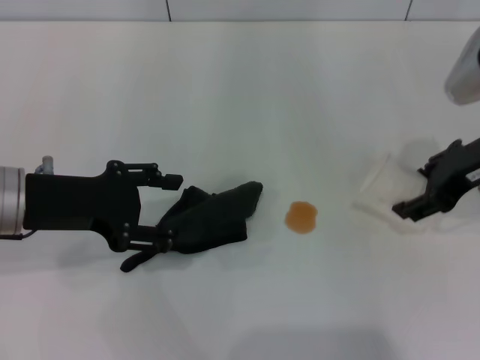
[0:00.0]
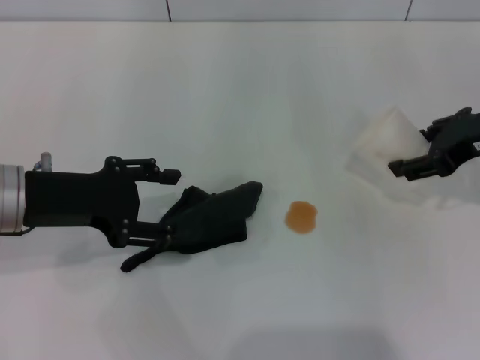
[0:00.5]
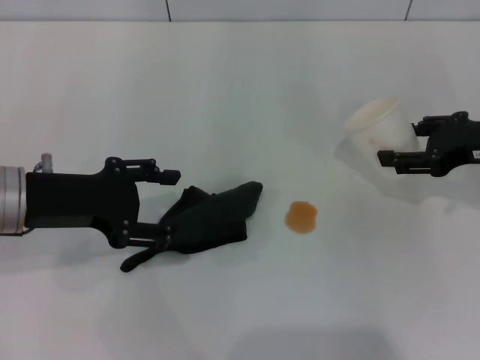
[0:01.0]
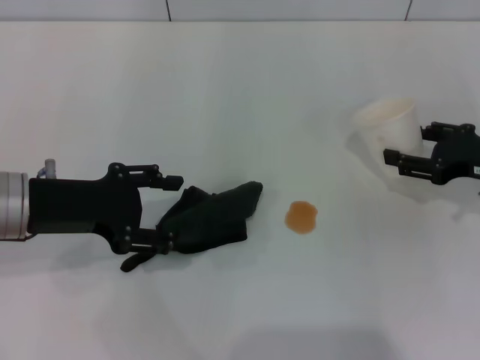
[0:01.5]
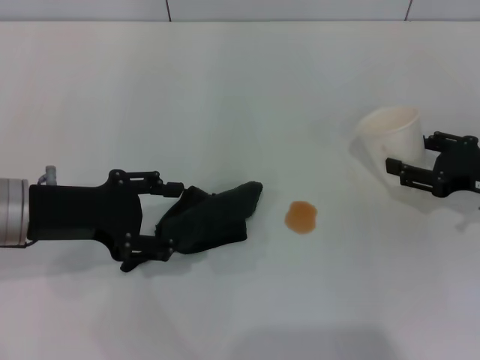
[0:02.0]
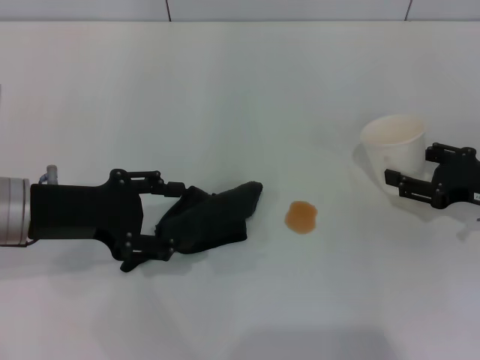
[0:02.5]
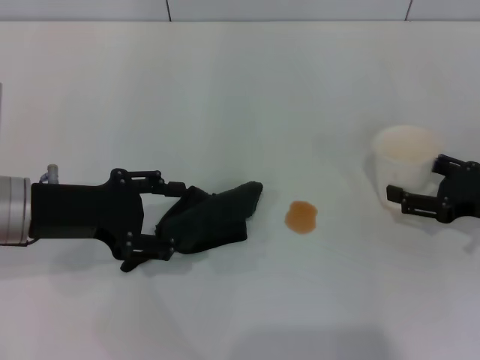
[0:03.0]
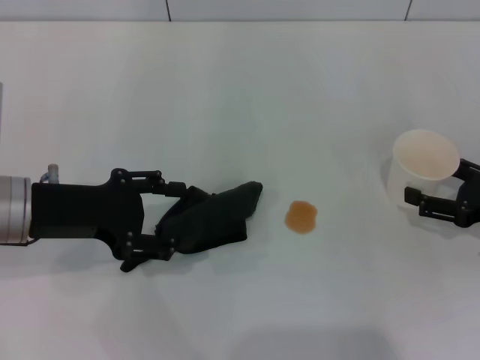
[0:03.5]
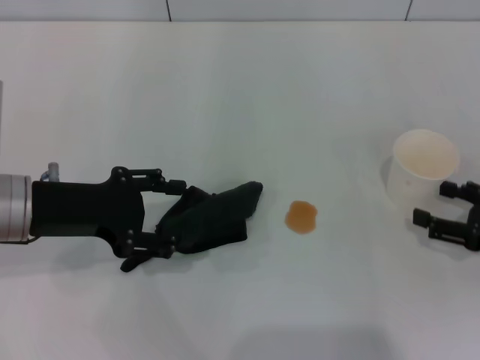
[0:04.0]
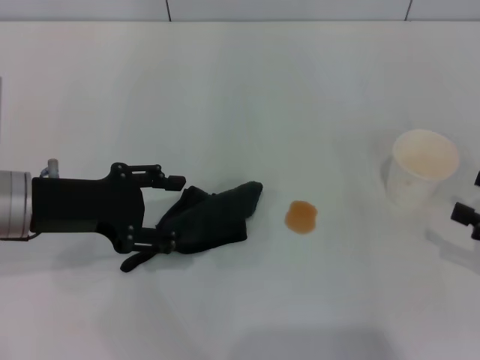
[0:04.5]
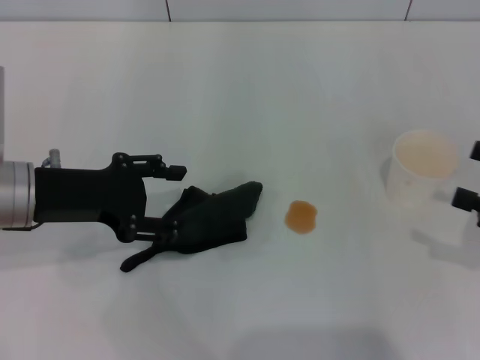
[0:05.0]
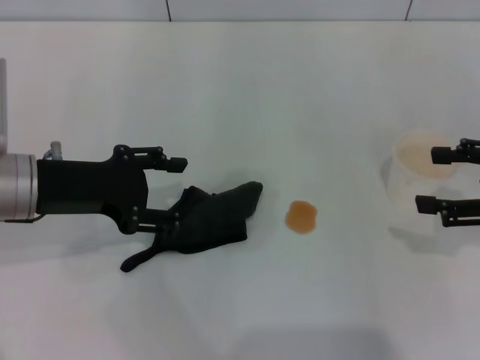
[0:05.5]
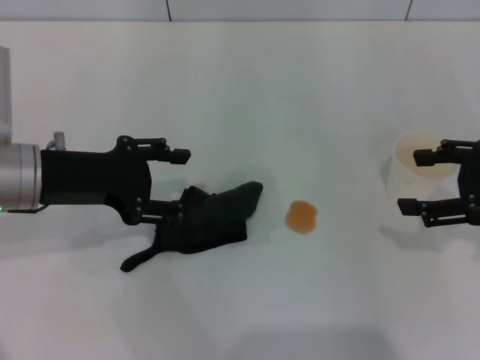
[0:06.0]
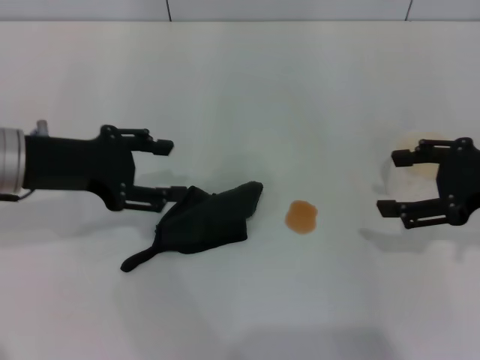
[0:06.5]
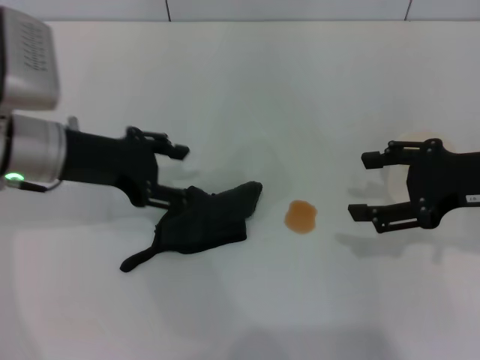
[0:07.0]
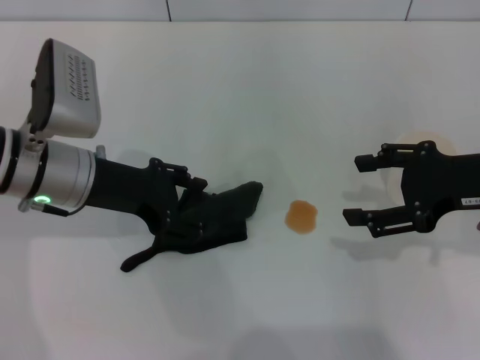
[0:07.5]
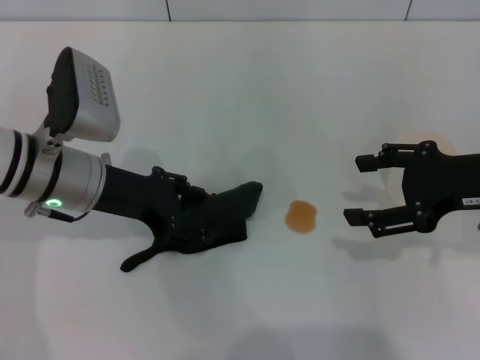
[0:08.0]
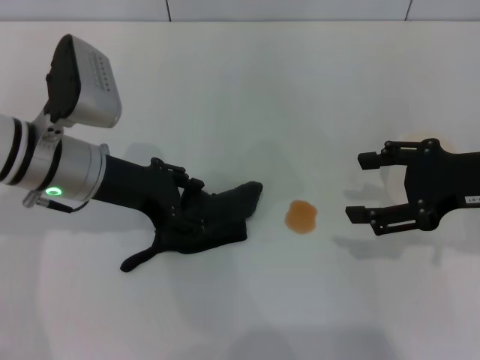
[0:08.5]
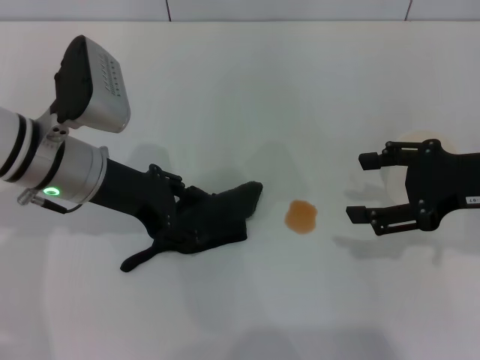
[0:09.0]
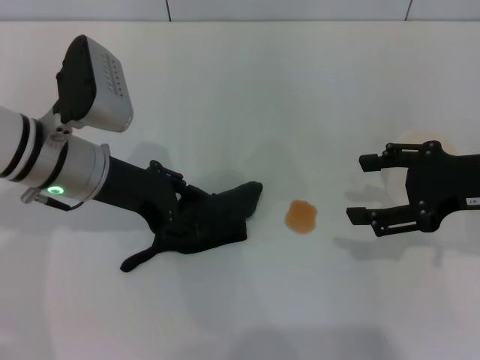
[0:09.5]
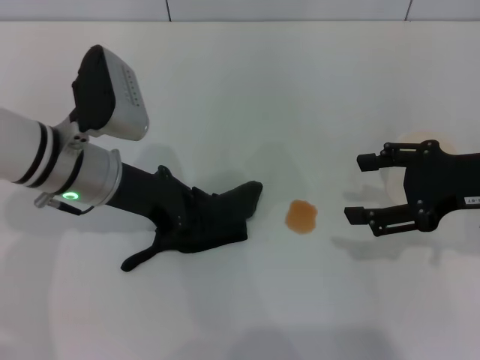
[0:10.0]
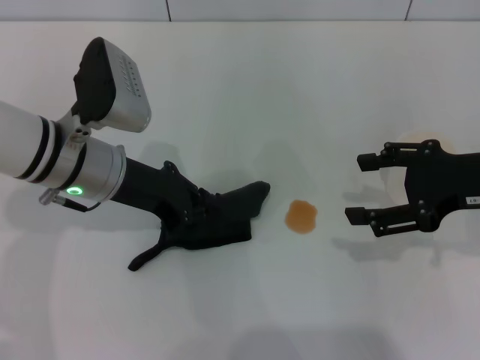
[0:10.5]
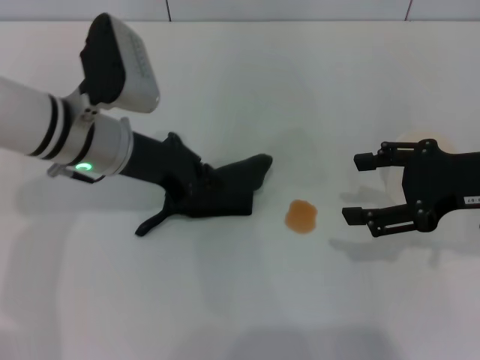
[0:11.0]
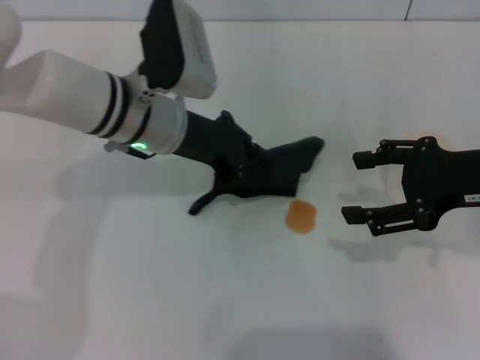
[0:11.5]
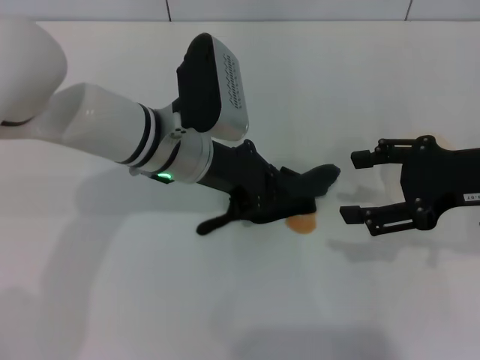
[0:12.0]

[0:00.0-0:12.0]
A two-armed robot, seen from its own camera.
Step, 0:00.0 to 0:04.0: Stand the paper cup upright with the right gripper.
Step, 0:04.5 to 0:10.5: Grasp the rag with the left gripper.
0:00.0 to 0:02.0: The right gripper heads downward and to the right, covering approximately 15 cm.
0:02.0 to 0:04.0: The right gripper shifts roughly 5 cm backward, and opens.
0:04.0 to 0:06.0: The right gripper is displaced upward by roughly 10 cm.
0:06.0 to 0:08.0: The left gripper ends up roughly 5 cm from where it was.
0:08.0 to 0:10.0: The left gripper closes its fingers.
0:10.0 to 0:12.0: The left gripper is displaced to the right by approximately 10 cm, and closes.

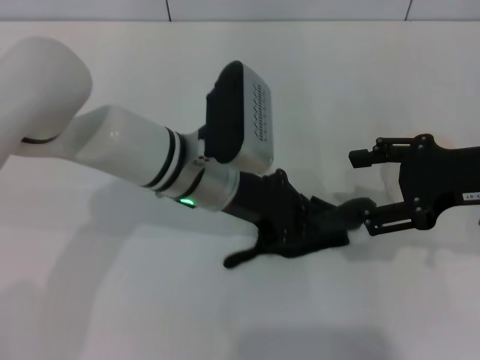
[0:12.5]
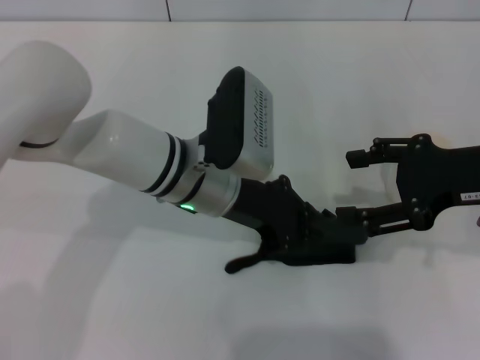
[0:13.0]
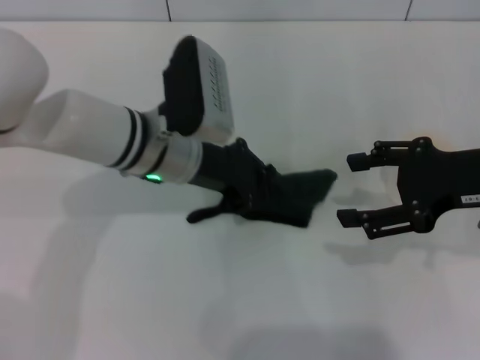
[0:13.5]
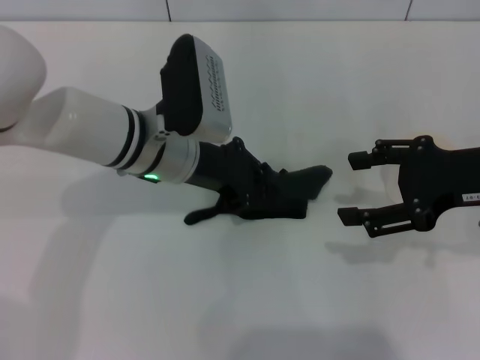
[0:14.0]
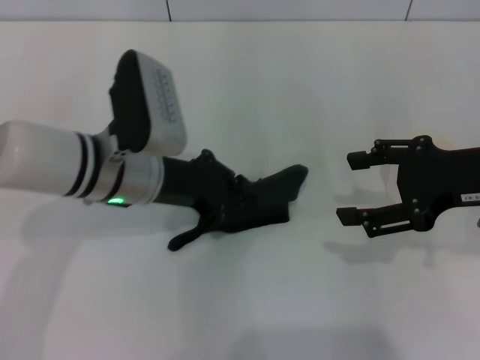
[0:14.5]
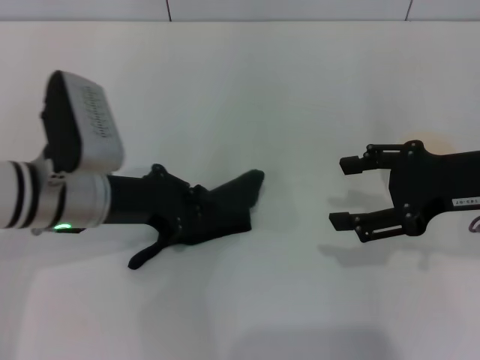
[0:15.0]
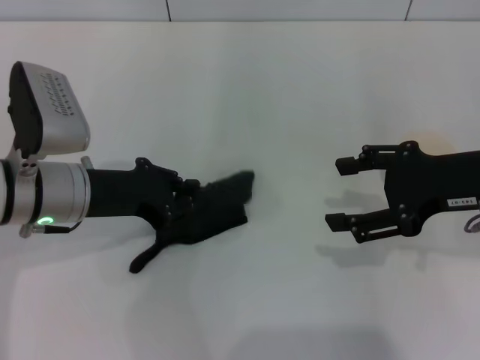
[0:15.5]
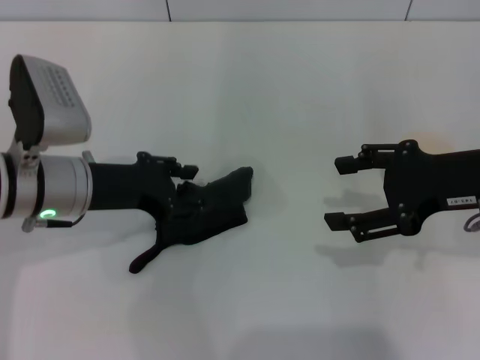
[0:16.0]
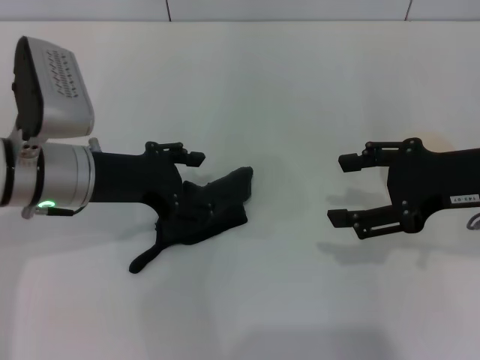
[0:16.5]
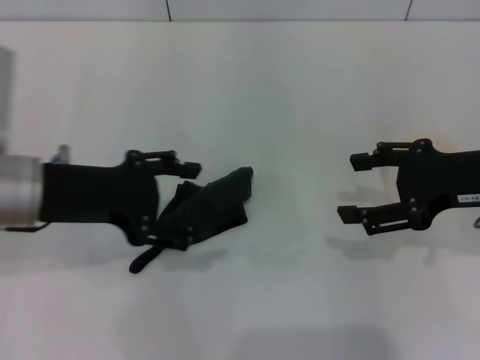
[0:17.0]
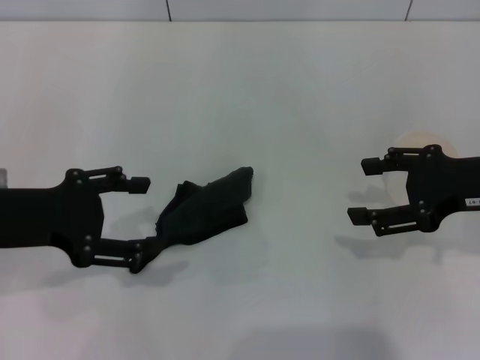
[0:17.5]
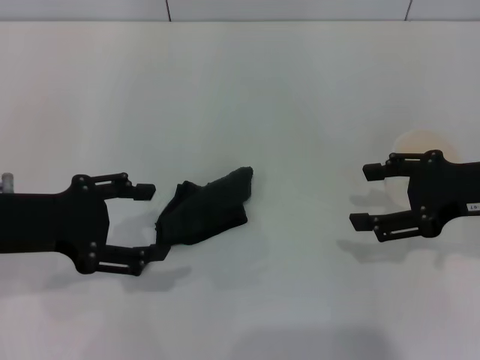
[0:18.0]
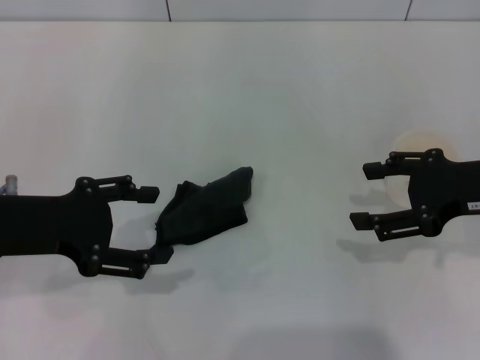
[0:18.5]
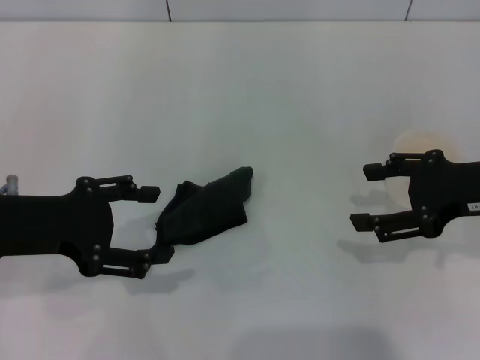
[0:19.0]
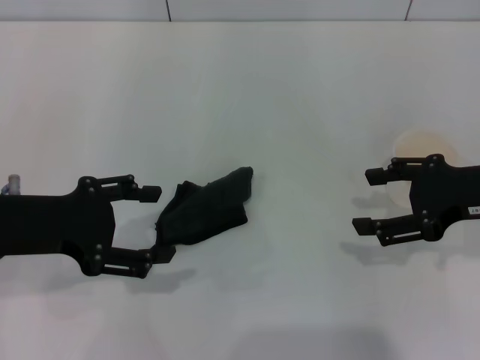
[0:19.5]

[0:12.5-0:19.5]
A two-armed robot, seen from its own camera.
Step, 0:12.5 to 0:14.5: Wipe the stains off the table with the left gripper.
Step, 0:15.0 to 0:17.5: Place the rag on the table with the left gripper.
0:12.5 to 0:14.5: The left gripper shifts approximately 5 cm to the left.
0:14.5 to 0:16.0: The left gripper travels to the left by about 5 cm, and opens up.
0:16.0 to 0:17.5: The left gripper is displaced to the left and backward by some 10 cm, and opens up.
0:17.5 to 0:19.5: Both grippers stay put.

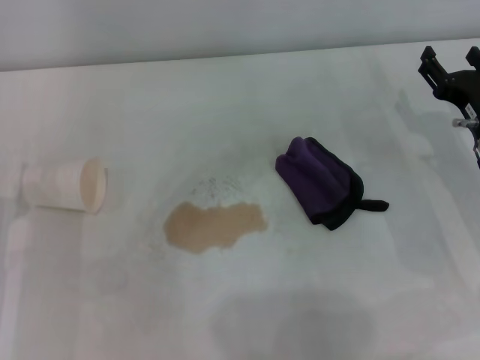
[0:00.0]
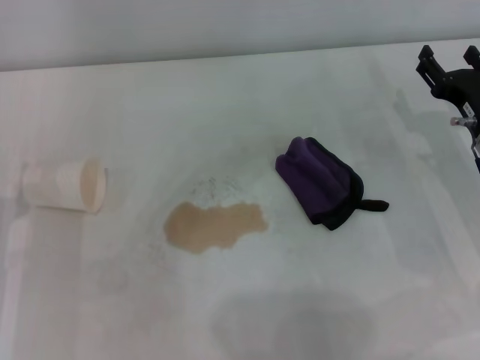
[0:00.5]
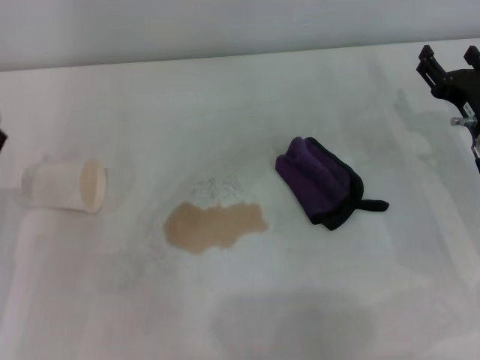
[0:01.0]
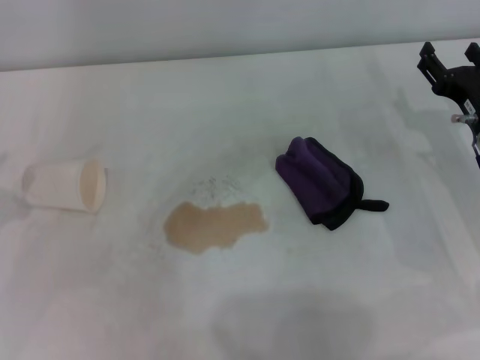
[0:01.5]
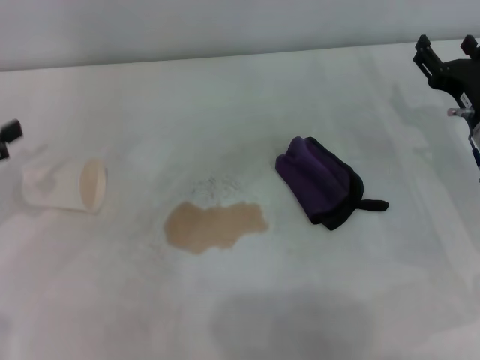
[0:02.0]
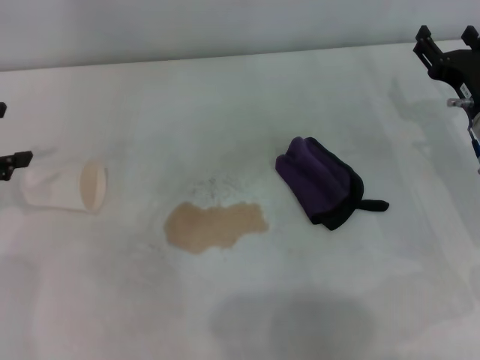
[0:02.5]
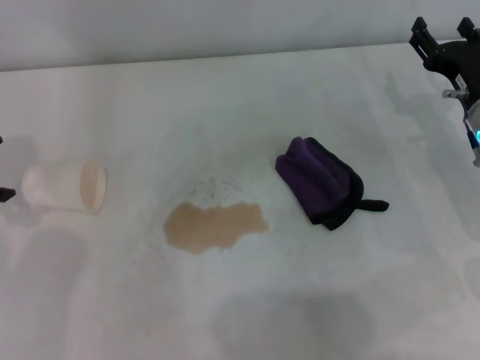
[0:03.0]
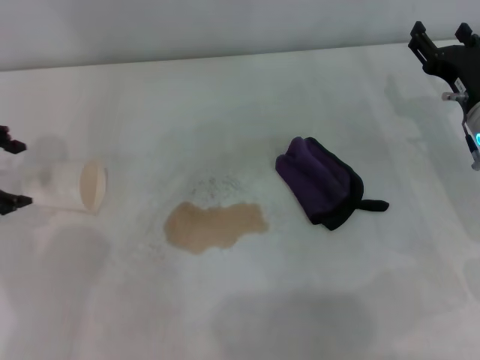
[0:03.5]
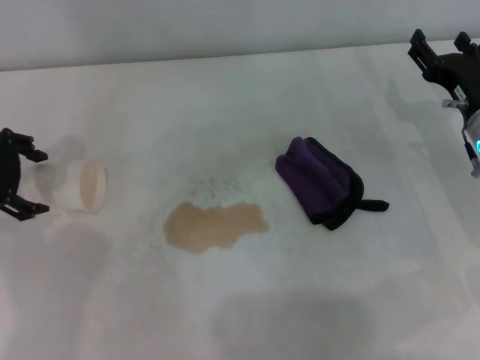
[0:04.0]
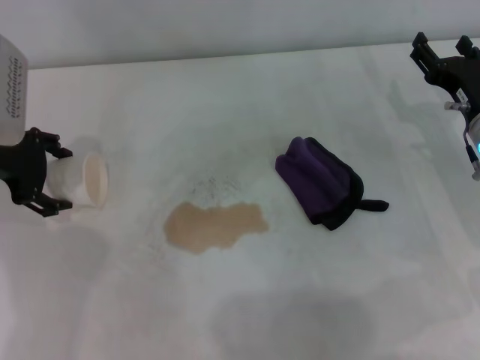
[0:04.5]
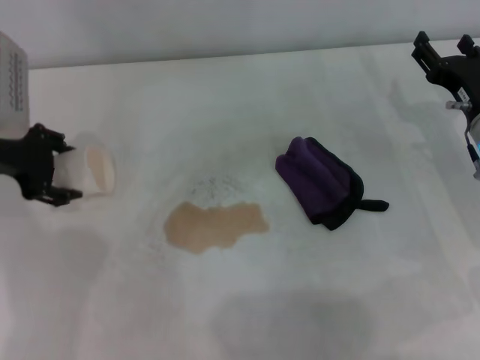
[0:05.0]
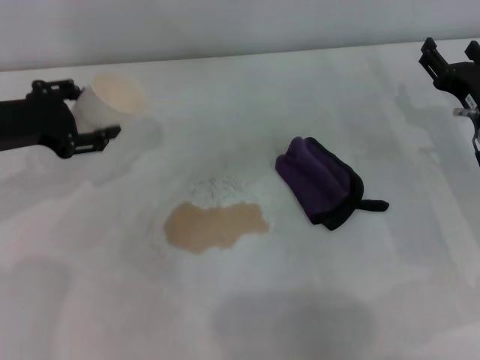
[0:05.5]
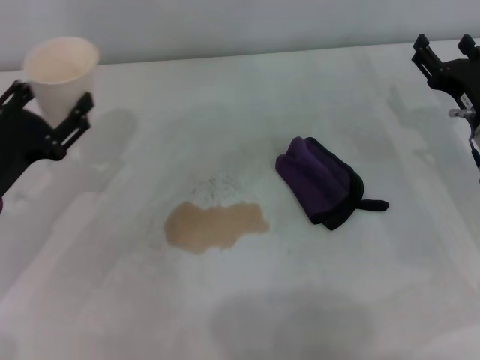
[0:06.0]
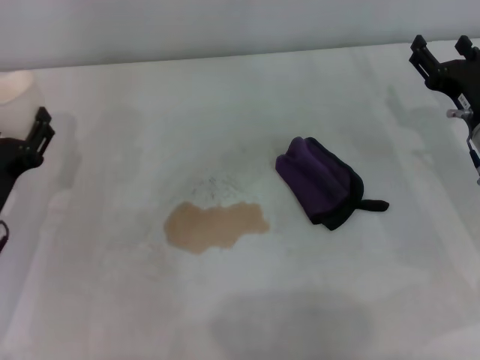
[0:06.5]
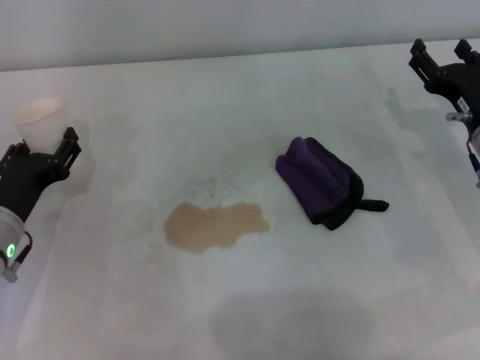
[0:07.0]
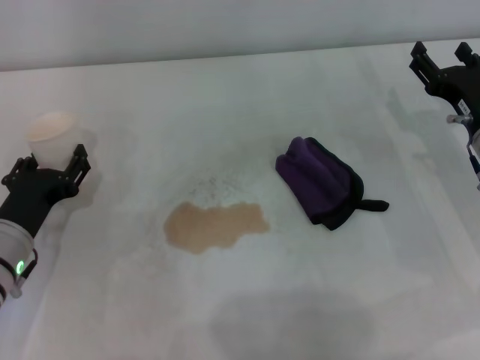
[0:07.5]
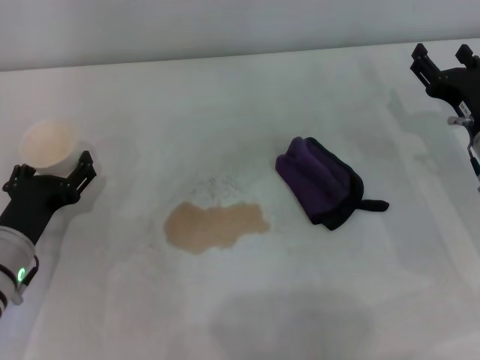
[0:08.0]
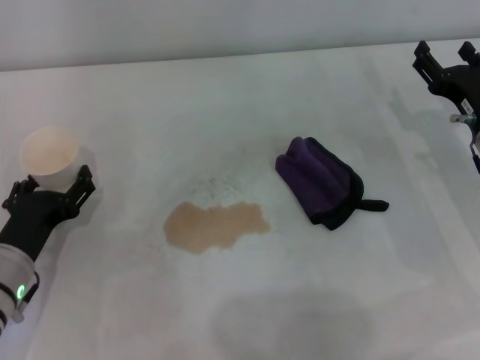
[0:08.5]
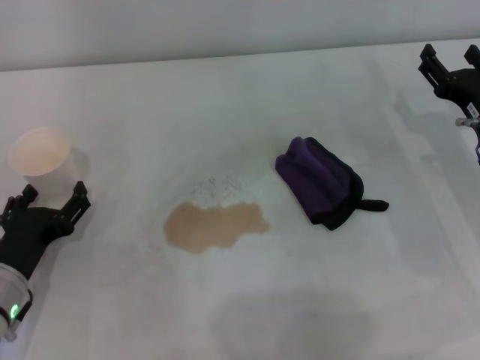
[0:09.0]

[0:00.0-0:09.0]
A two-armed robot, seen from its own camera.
Step, 0:00.0 to 0:04.5: Grasp the paper cup with the left gripper.
Step, 0:05.0 to 0:08.0: Stand the paper cup upright with the left gripper.
0:02.0 to 0:04.5: The left gripper moves forward and to the right, some 15 cm.
0:04.5 to 0:07.0: The left gripper moves downward and backward, some 15 cm, and closes its fingers.
0:07.0 to 0:09.0: The left gripper is displaced backward by about 5 cm, and opens its fingers.
